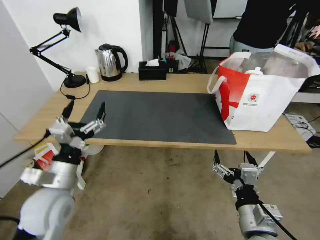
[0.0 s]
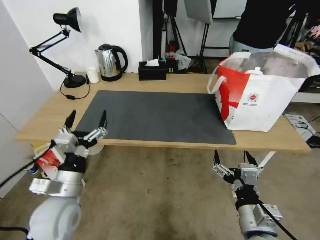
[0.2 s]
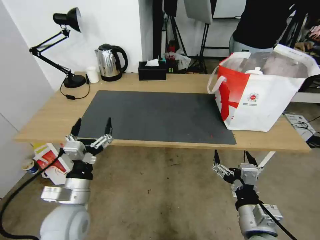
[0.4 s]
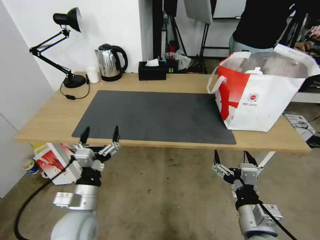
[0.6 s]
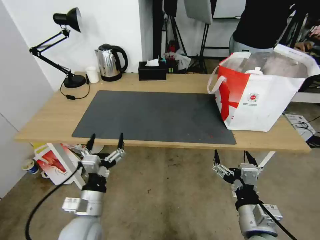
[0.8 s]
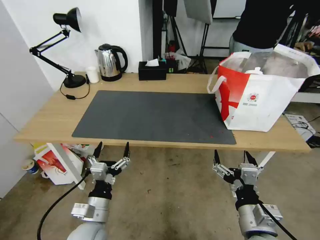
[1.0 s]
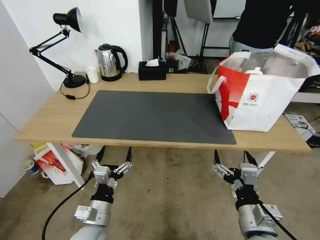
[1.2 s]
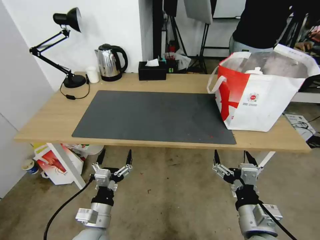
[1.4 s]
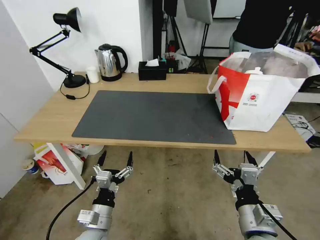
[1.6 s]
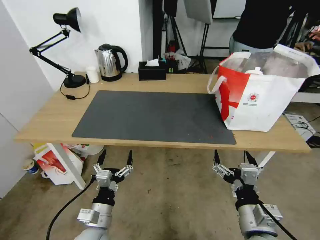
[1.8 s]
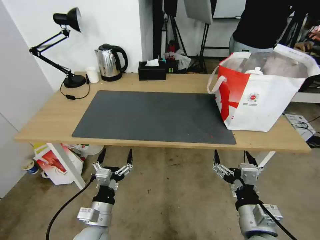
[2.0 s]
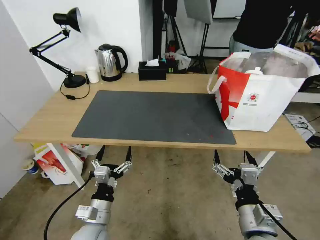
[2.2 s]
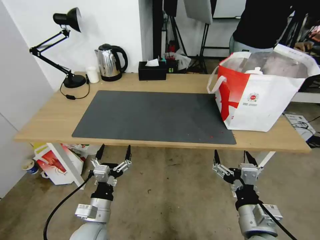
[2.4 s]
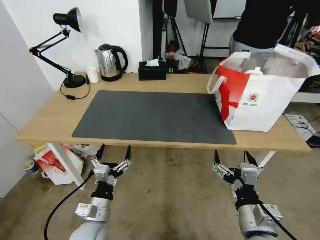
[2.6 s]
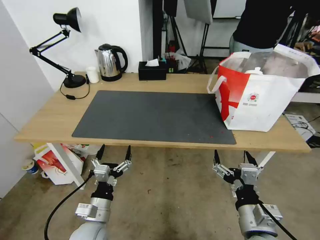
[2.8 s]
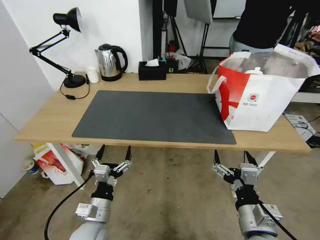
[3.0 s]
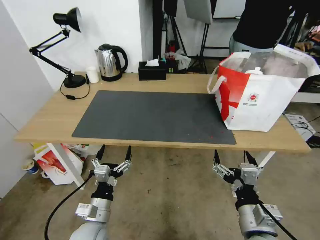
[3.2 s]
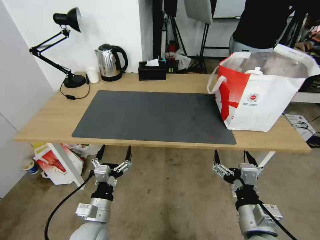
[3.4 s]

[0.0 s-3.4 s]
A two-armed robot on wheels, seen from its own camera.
Task of the whole recording: Pick up the trash from the table and place it into the takeout bag.
0.0 to 1.6 s: The left gripper shifts roughly 20 cm downward, to the right and backward.
1.6 to 3.4 s: There are only small adjustments of the grippers.

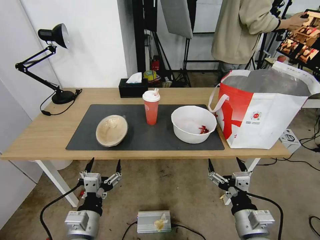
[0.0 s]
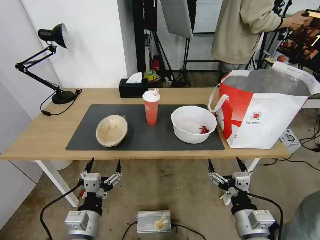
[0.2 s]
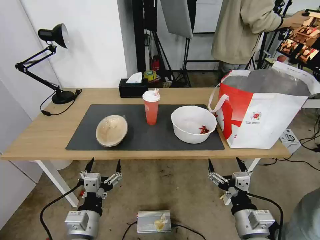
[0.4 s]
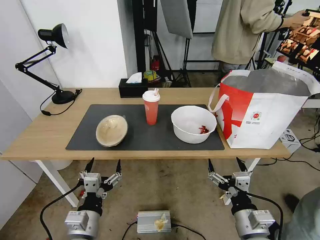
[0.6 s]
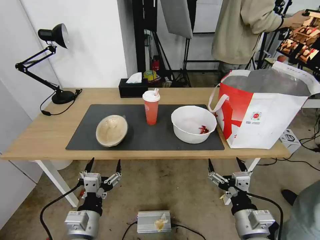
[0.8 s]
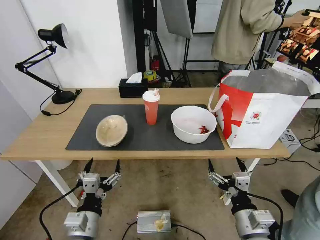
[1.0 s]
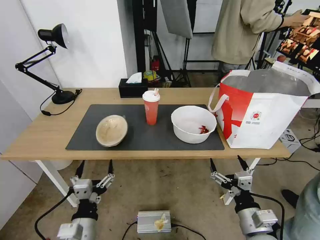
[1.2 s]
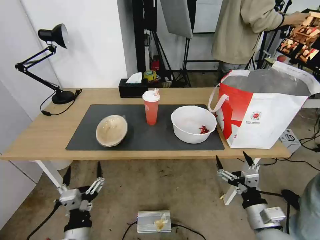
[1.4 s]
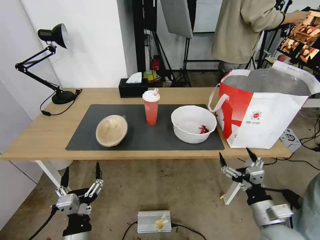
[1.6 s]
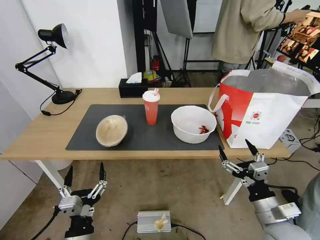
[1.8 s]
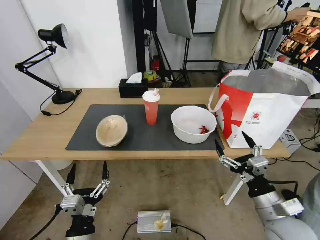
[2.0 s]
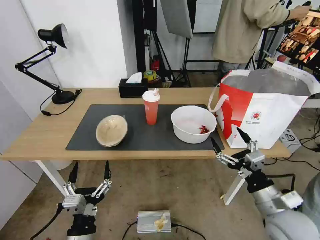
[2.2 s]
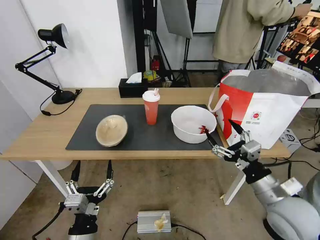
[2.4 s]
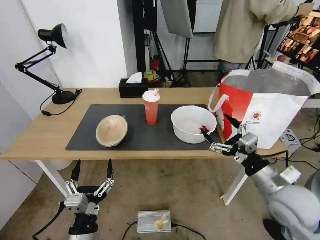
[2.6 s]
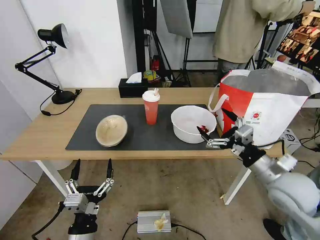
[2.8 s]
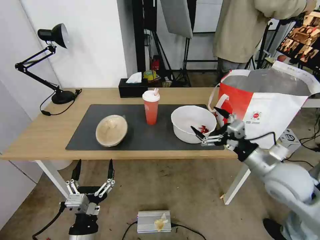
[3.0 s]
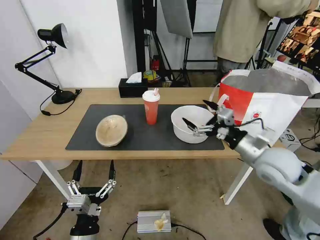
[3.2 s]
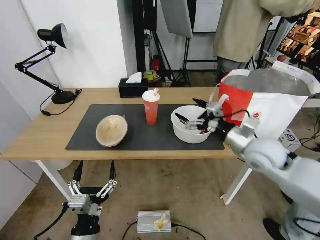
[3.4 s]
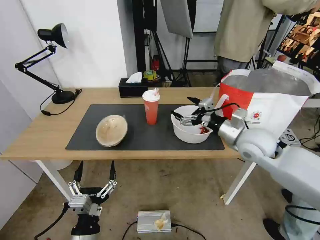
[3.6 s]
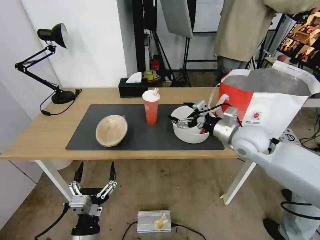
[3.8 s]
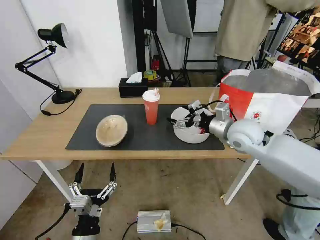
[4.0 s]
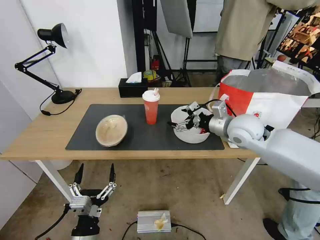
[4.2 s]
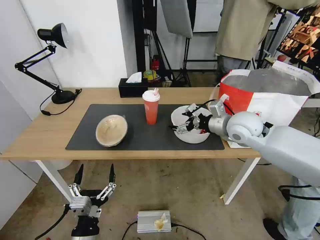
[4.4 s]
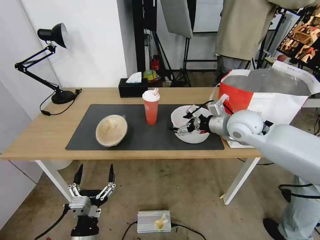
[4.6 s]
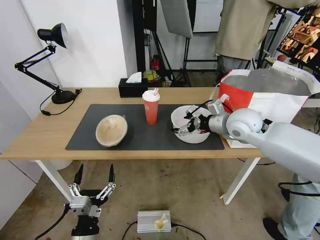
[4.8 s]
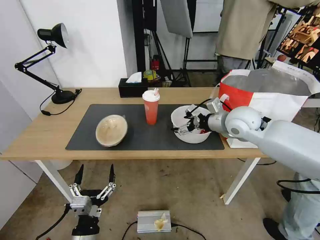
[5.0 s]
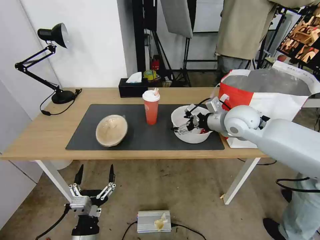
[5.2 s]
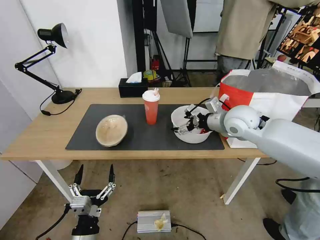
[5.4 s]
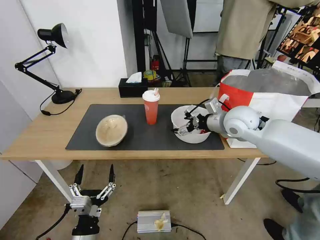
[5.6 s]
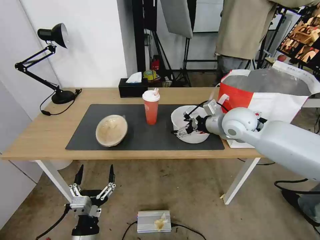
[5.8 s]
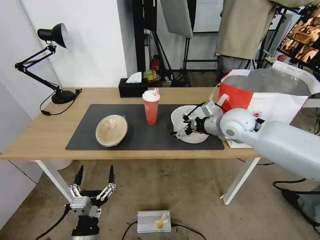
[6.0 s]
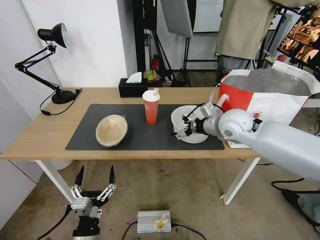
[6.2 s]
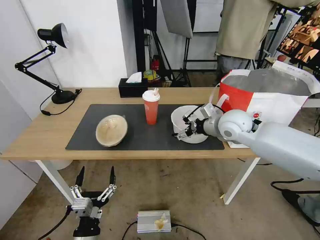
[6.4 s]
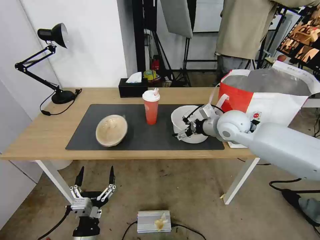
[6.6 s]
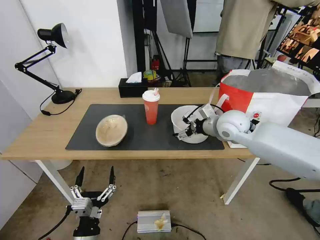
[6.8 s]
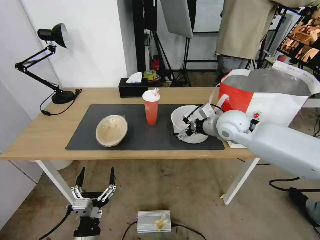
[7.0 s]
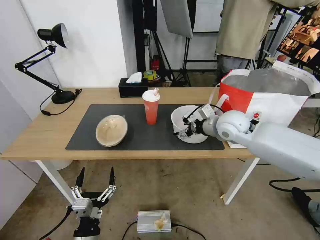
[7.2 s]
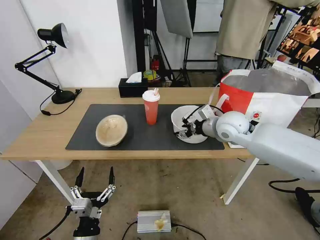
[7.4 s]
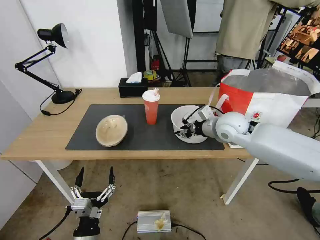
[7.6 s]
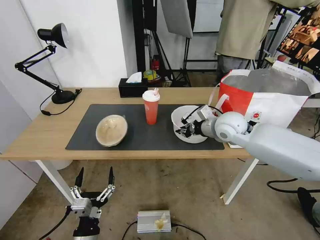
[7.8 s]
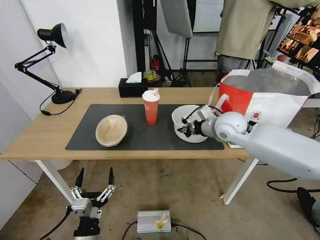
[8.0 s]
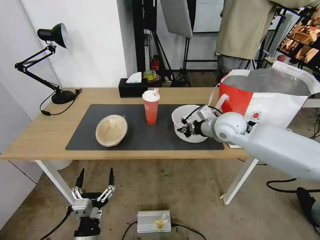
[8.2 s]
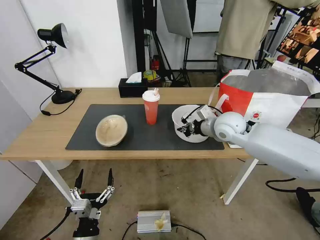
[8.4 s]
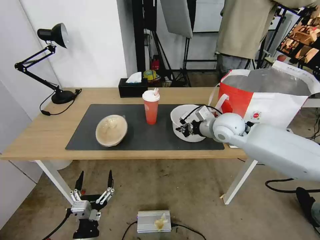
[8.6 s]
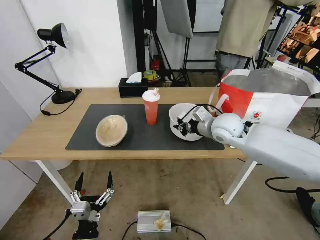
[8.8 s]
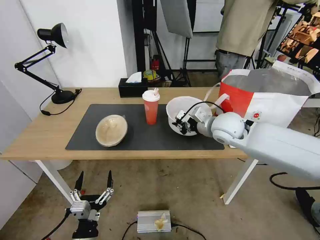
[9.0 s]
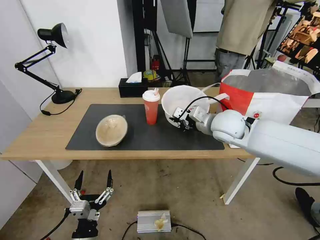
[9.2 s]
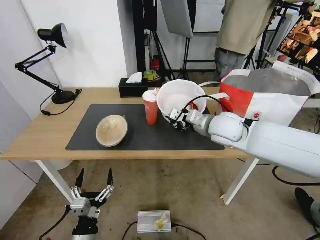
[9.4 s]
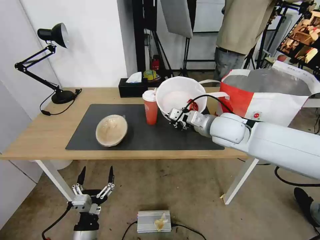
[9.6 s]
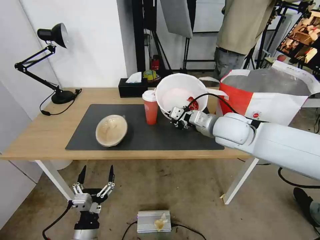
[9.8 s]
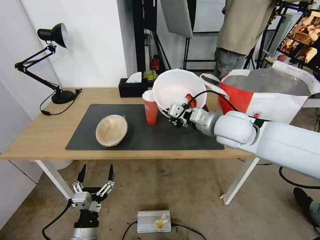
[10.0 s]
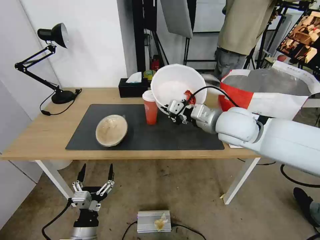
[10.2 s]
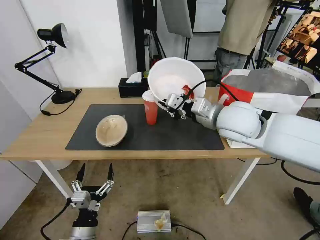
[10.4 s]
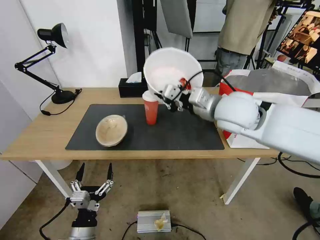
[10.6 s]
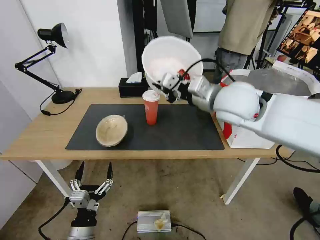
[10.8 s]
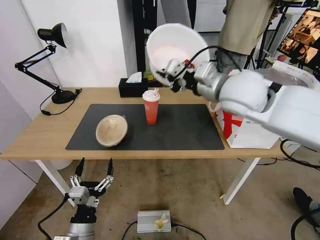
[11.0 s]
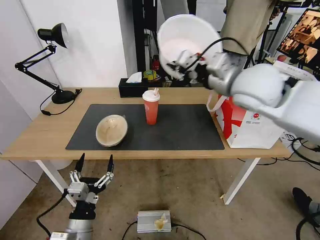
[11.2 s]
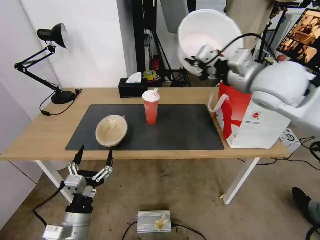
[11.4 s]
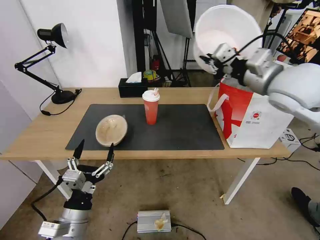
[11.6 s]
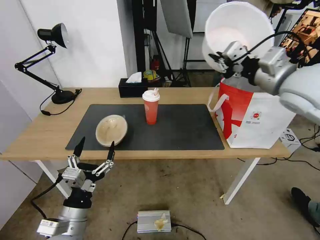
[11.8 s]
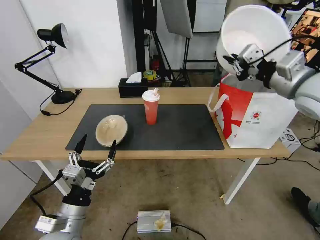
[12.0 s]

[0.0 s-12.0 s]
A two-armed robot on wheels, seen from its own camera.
Task of the whole recording: Pick up the trash from the table and place it into the takeout bag.
1.6 to 3.0 s: The right gripper heads upward and forward, covering roughly 15 cm.
3.0 to 4.4 s: The right gripper is displaced forward and to the left by roughly 15 cm.
4.4 to 6.0 s: There are only small adjustments of the grippers.
6.0 to 7.6 s: The right gripper closes its fingers.
7.6 to 9.0 s: The right gripper closes up.
9.0 to 10.4 s: The right gripper shifts approximately 10 cm upward and backward.
10.4 to 12.0 s: The left gripper goes some 10 cm upward; the right gripper travels to the right and upward by about 15 cm.

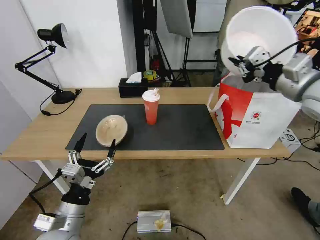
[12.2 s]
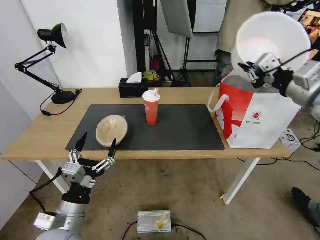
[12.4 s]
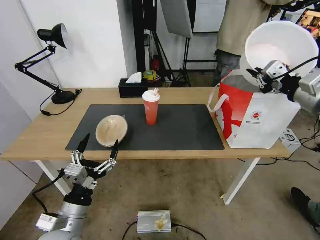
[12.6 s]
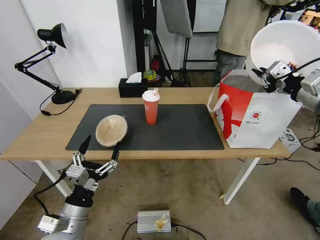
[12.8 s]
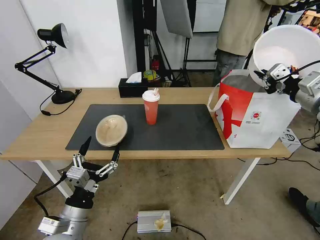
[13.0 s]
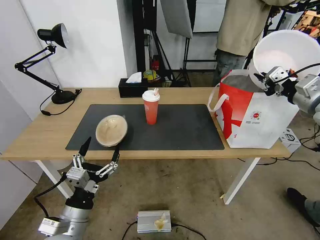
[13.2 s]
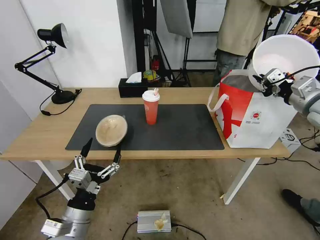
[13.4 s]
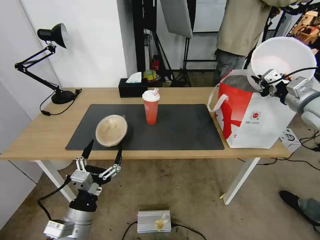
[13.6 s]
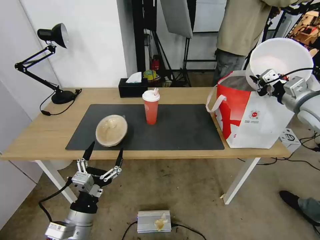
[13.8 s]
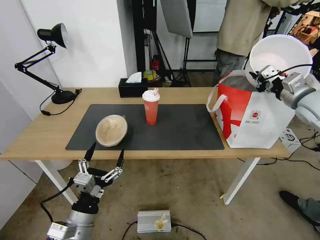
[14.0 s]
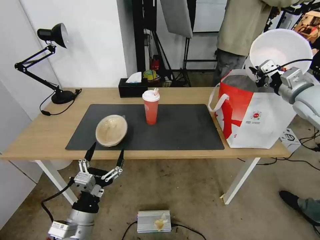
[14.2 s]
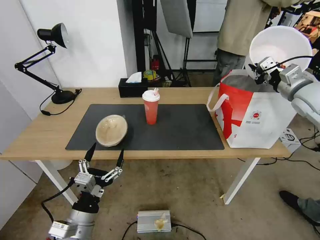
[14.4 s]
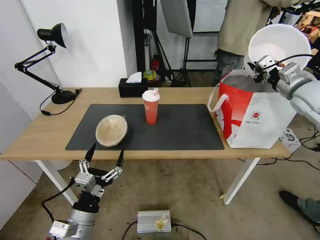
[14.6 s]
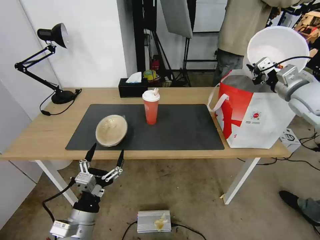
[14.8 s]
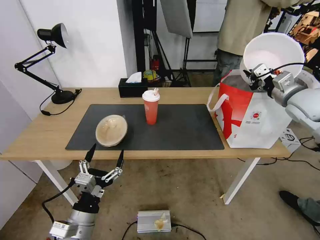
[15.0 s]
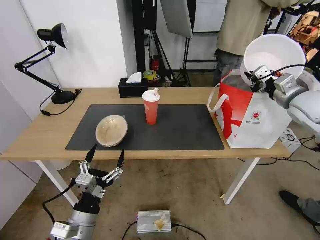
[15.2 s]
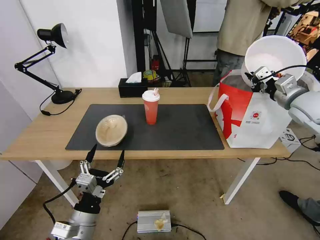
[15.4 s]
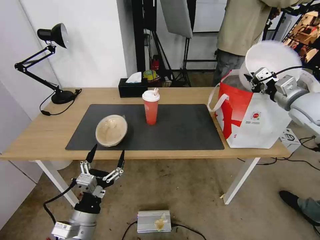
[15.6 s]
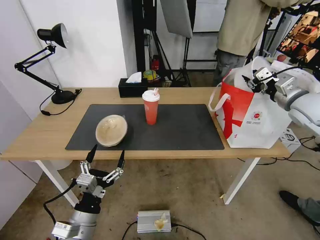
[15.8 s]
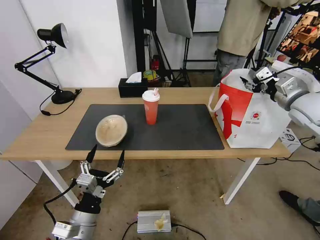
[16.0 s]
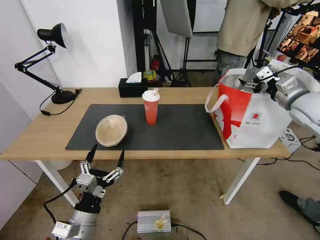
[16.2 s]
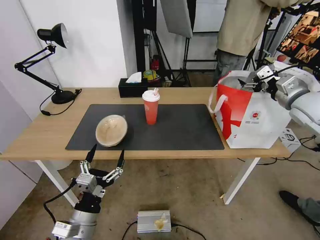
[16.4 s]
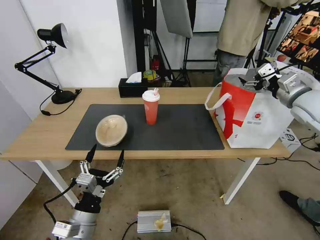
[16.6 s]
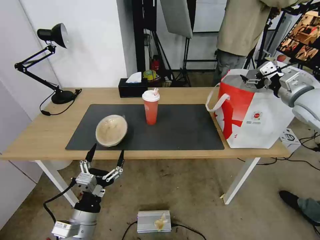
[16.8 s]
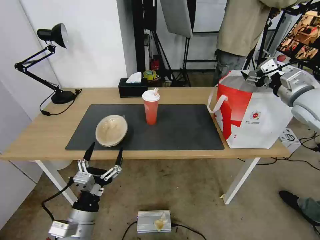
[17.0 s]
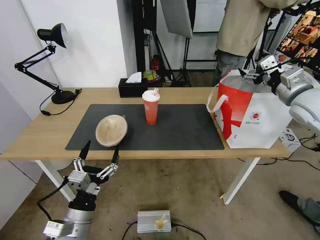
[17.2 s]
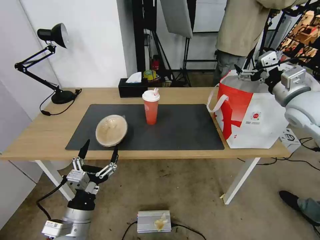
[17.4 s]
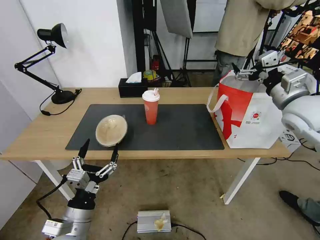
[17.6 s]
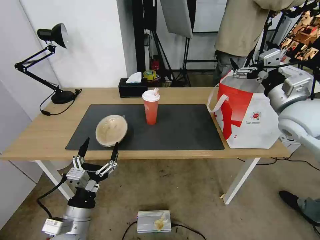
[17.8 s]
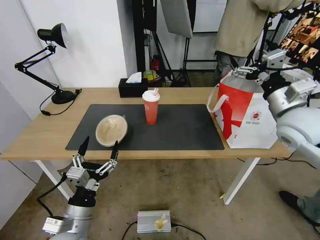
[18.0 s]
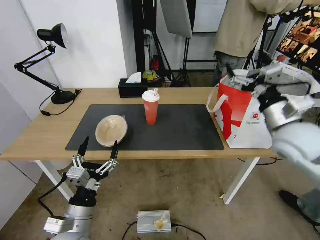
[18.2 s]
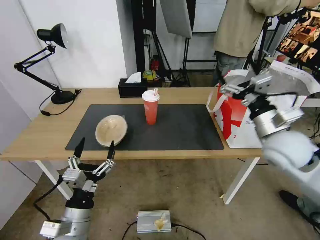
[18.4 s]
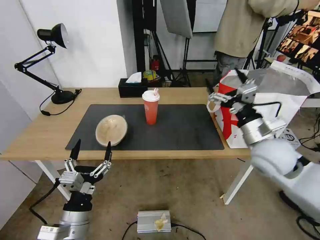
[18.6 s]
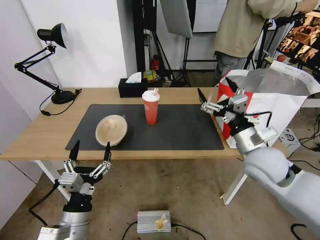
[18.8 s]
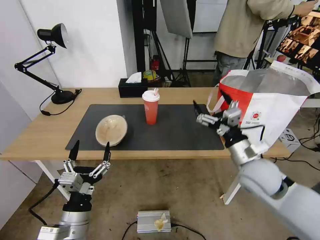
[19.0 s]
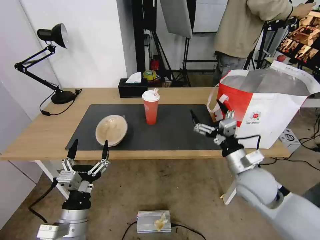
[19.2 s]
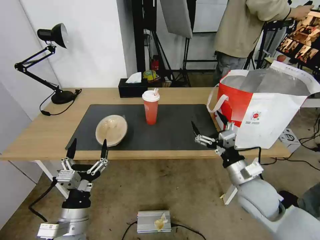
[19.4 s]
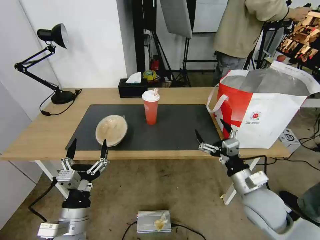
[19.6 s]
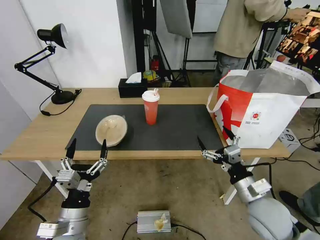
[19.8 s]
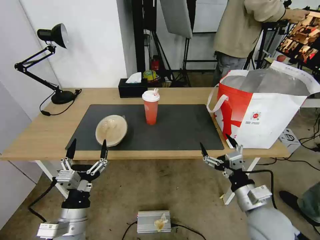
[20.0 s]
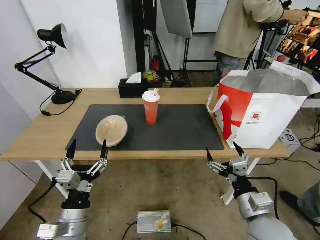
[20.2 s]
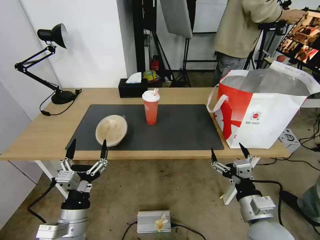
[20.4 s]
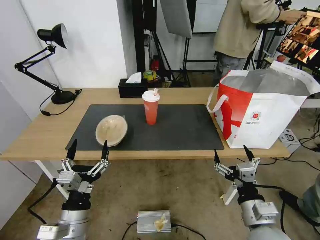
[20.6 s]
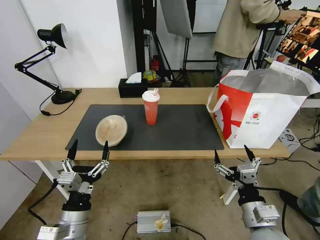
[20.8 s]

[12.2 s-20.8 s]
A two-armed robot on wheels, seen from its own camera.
Task of the whole recording: Pick up the trash from the table and place it into the takeout bag.
12.2 to 13.6 s: The right gripper moves to the right, downward and forward, roughly 15 cm.
13.6 to 15.0 s: There are only small adjustments of the grippers.
15.0 to 16.6 s: The right gripper opens.
16.6 to 18.0 s: The right gripper heads to the left and backward, covering roughly 10 cm.
18.0 to 19.4 s: The right gripper is displaced downward, backward and to the left by about 20 cm.
19.4 to 20.8 s: The right gripper travels backward by approximately 10 cm.
